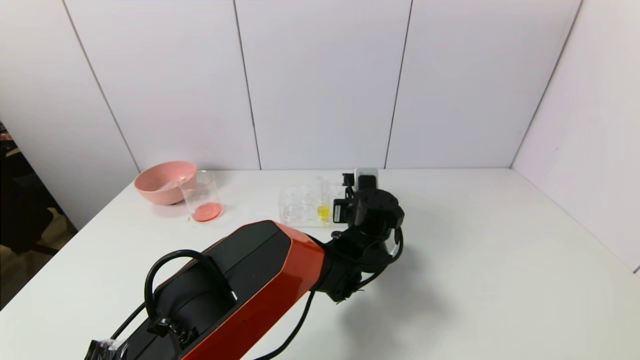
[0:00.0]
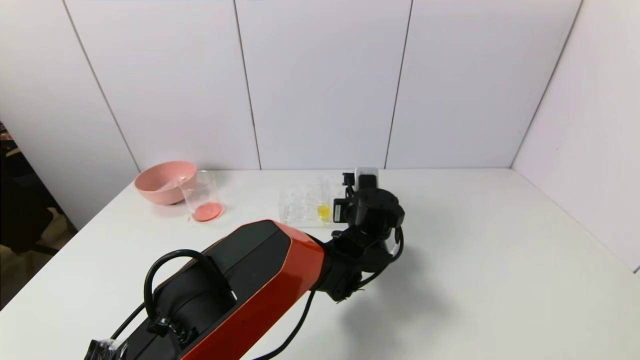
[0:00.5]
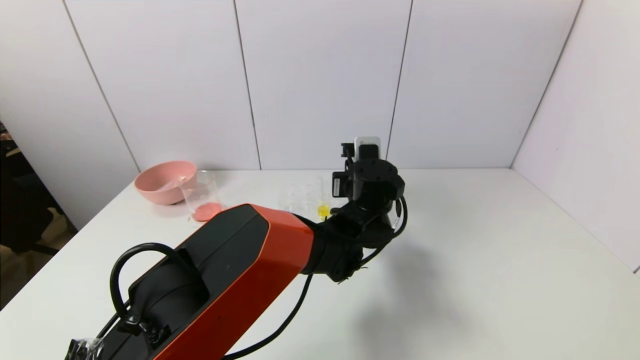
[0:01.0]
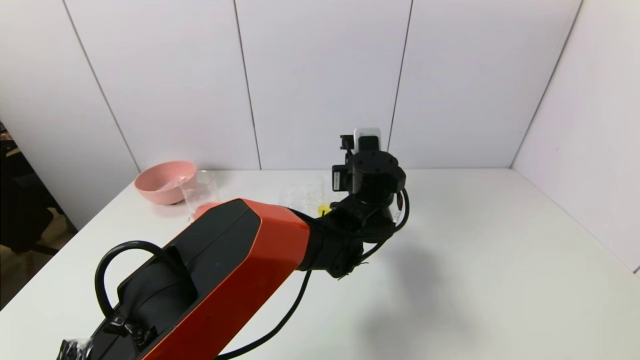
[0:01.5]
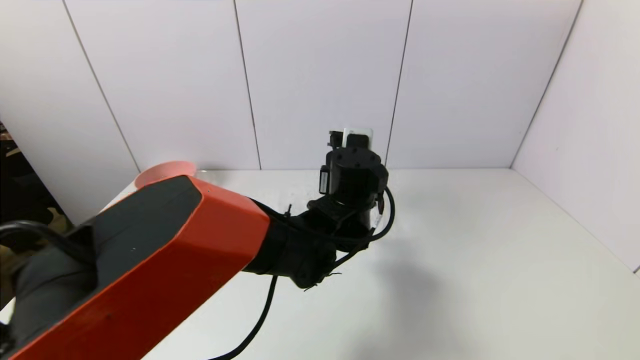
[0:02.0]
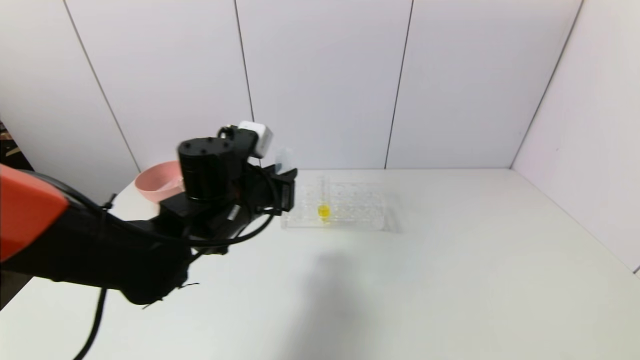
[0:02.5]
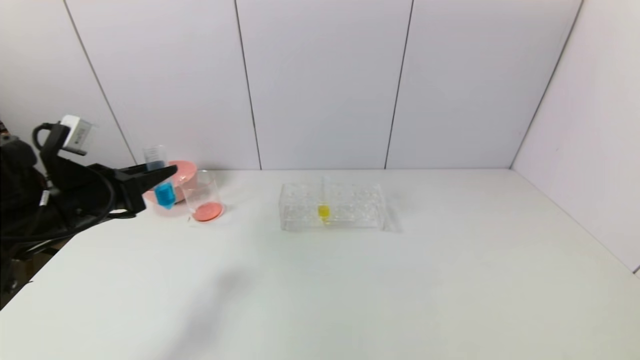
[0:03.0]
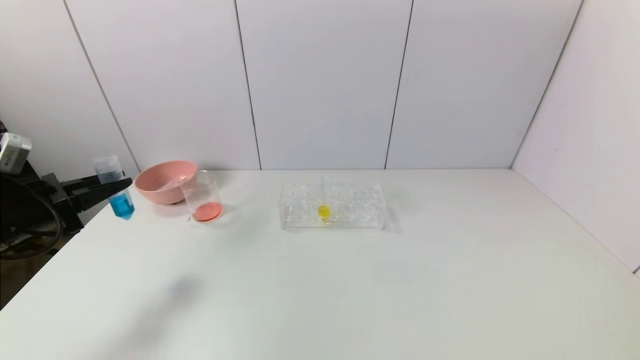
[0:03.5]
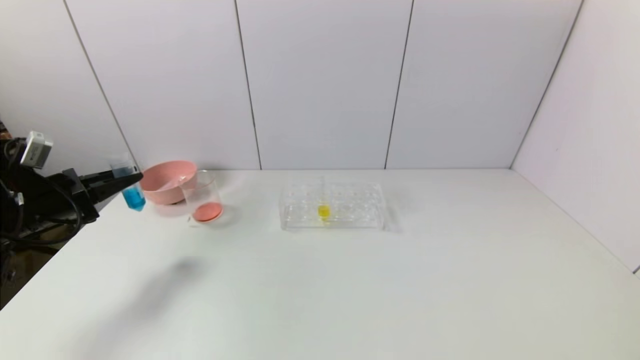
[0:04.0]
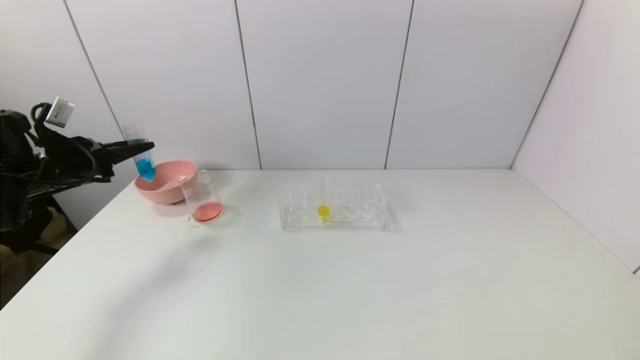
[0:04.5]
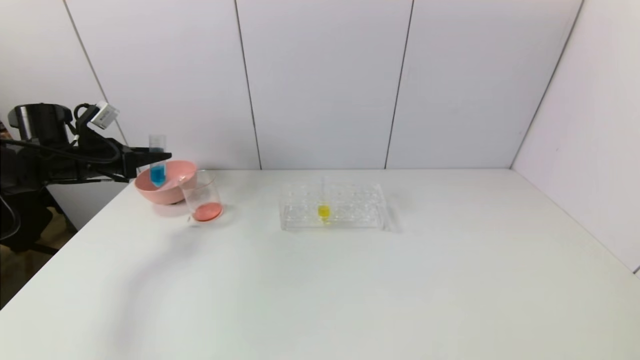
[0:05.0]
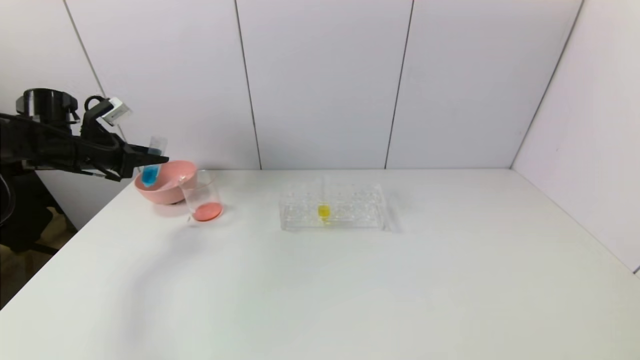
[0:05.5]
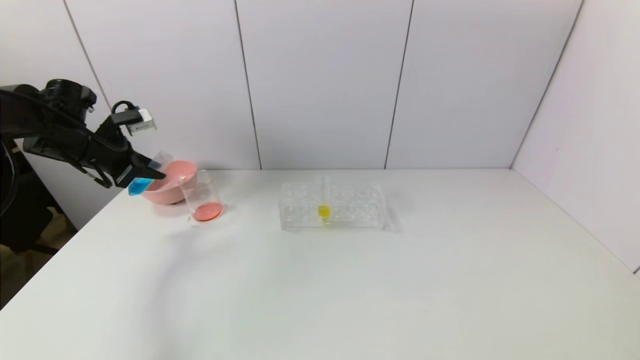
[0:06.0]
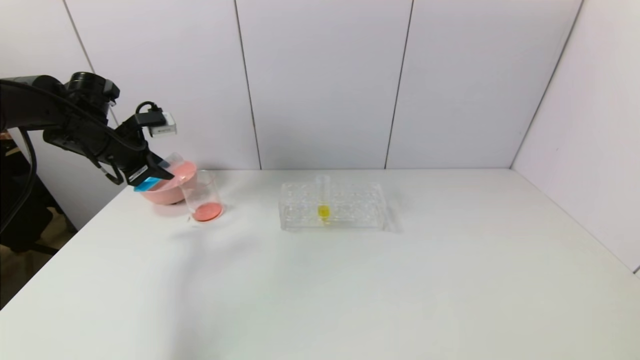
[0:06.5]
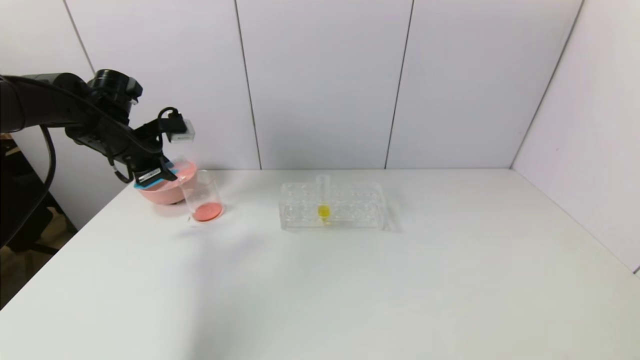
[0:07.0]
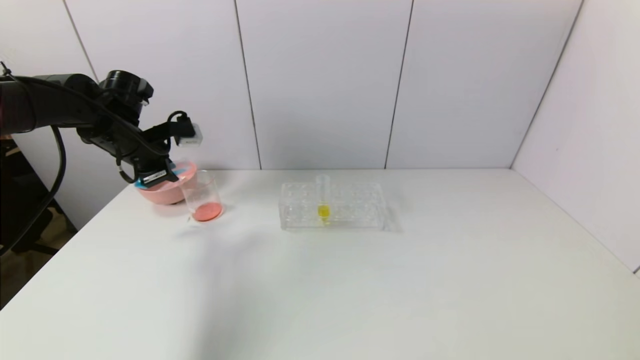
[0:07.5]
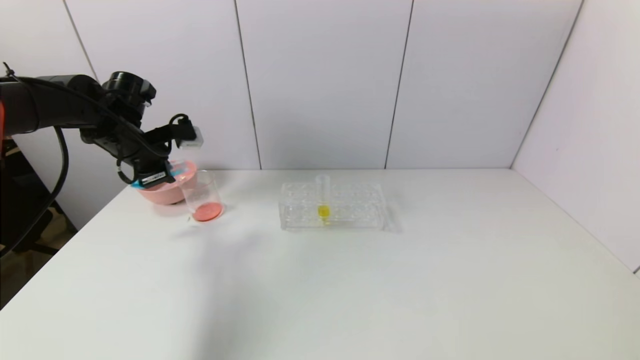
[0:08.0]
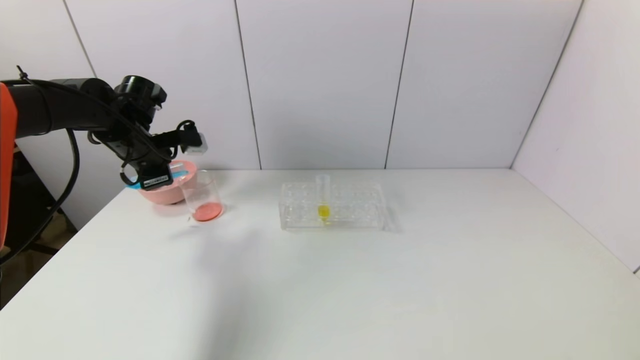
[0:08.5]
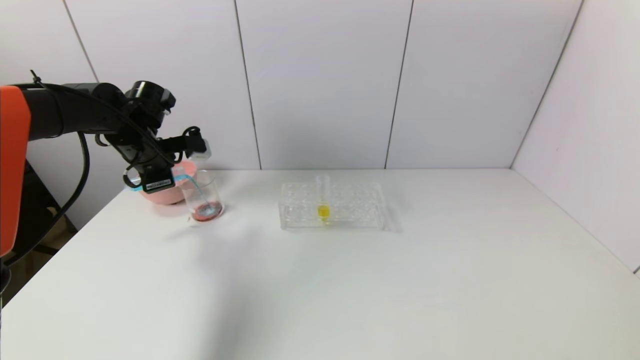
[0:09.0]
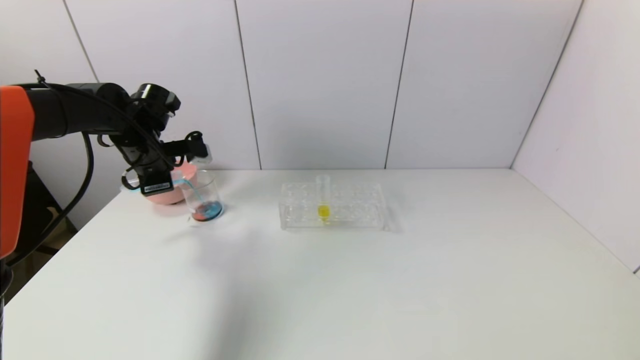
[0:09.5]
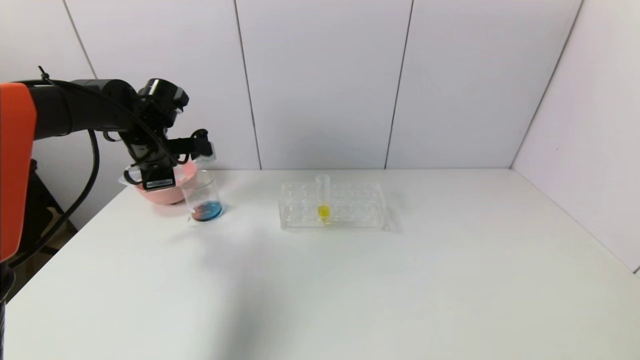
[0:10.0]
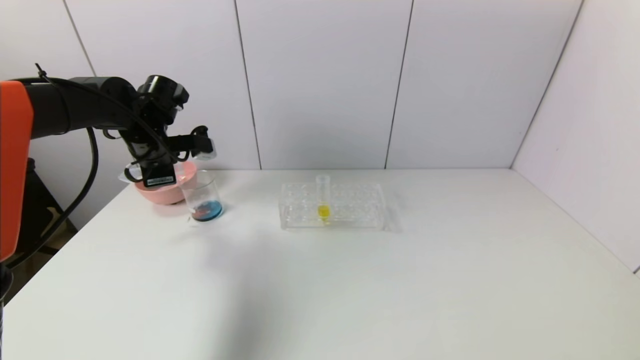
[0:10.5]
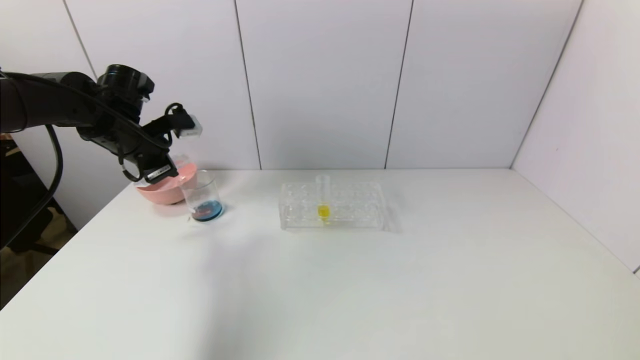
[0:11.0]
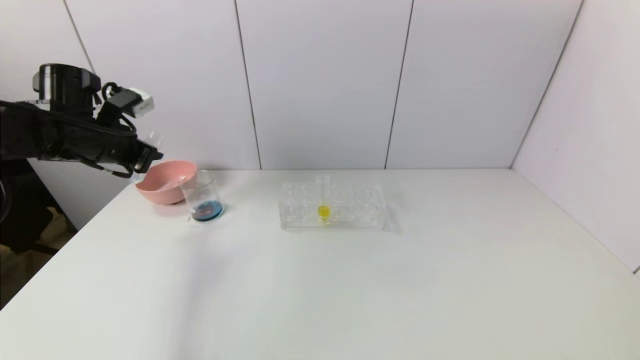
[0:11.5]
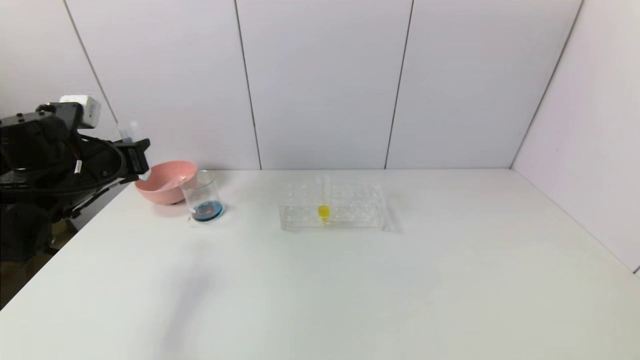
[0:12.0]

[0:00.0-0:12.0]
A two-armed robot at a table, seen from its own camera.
Task of the whole recording: pick up the test tube with red pigment and the test tube with blue pigment by grippers and pour them into the container.
Step, 0:00.0 to 0:10.5: Pour the blue reagent into the graduated cylinder with the left gripper.
0:00.0 to 0:02.0: The left gripper heads upward, covering about 10 cm.
0:02.0 to 0:04.0: The left gripper goes about 50 cm to the left.
0:04.0 to 0:06.0: The left gripper shifts some 10 cm forward and upward.
0:06.0 to 0:08.0: The left gripper shifts roughly 5 cm to the right.
0:10.0 to 0:12.0: The left gripper moves backward and to the left, about 10 cm.

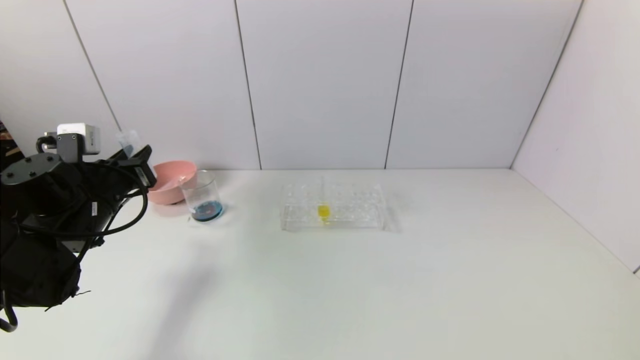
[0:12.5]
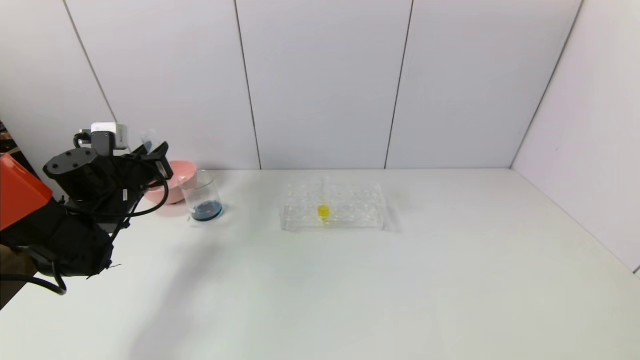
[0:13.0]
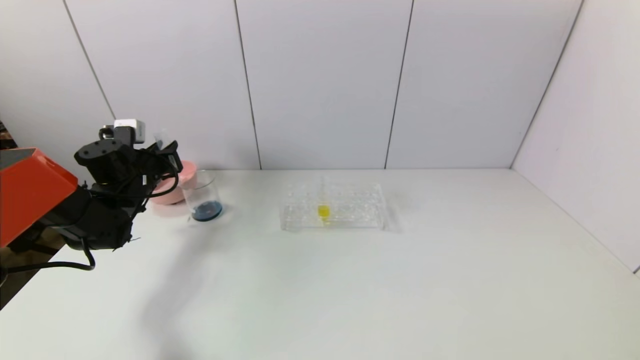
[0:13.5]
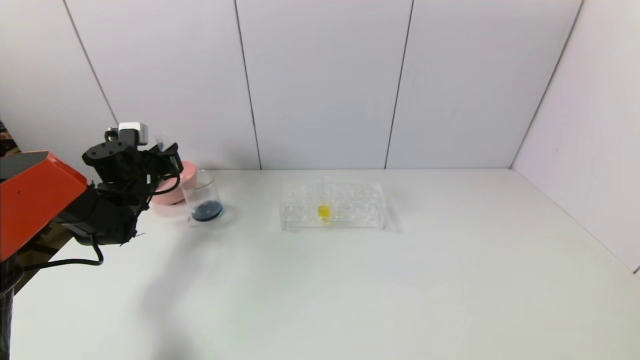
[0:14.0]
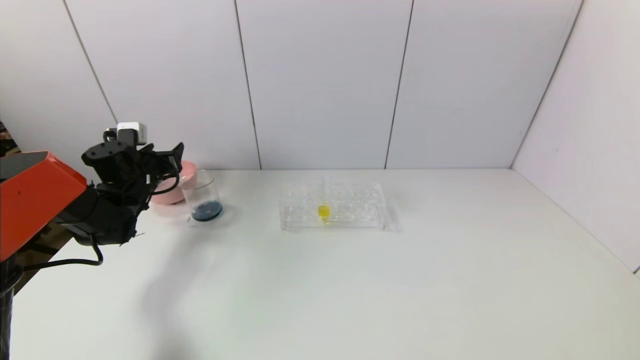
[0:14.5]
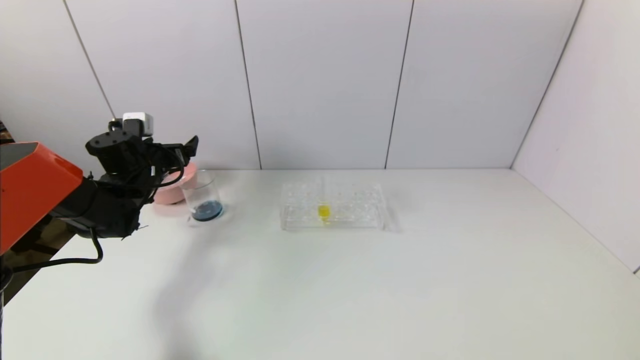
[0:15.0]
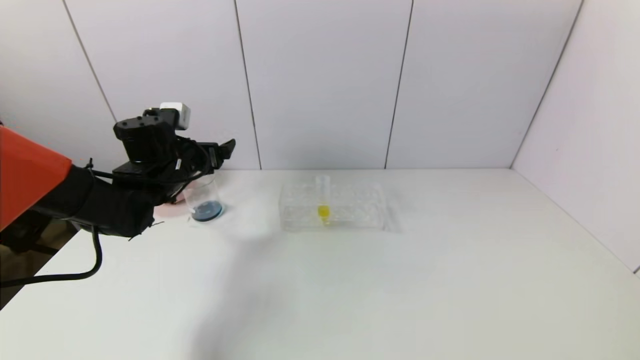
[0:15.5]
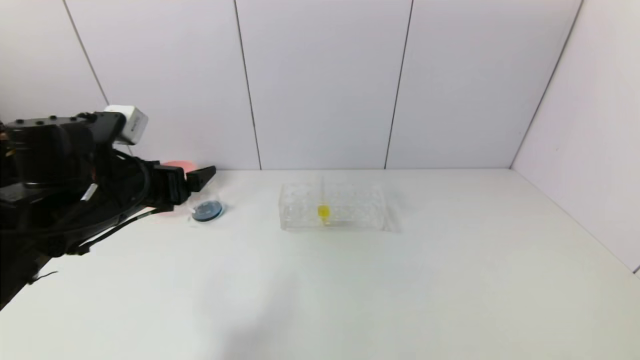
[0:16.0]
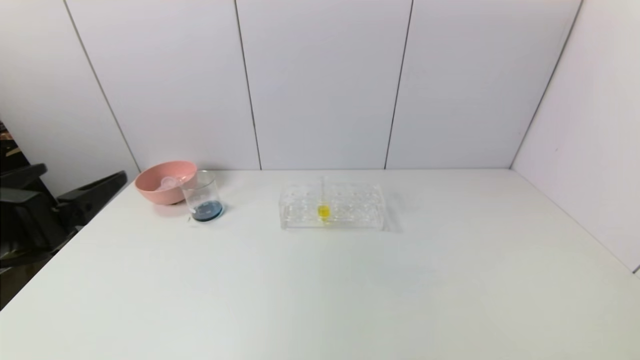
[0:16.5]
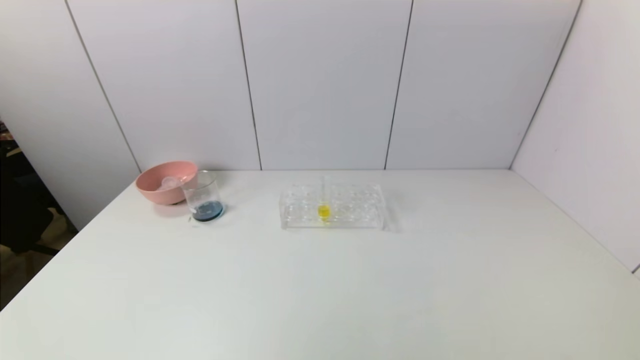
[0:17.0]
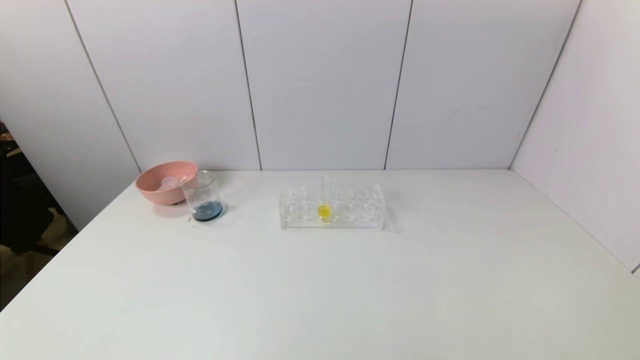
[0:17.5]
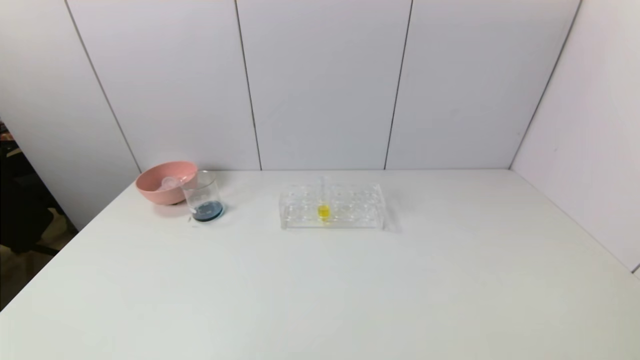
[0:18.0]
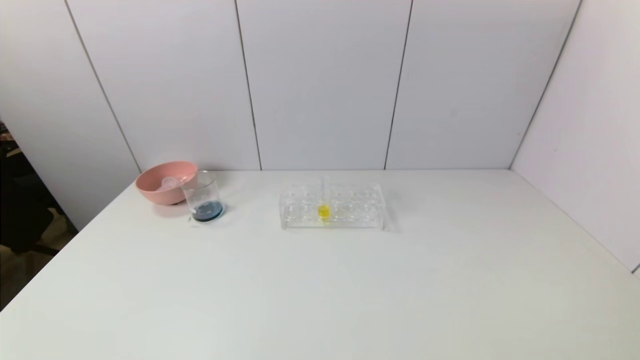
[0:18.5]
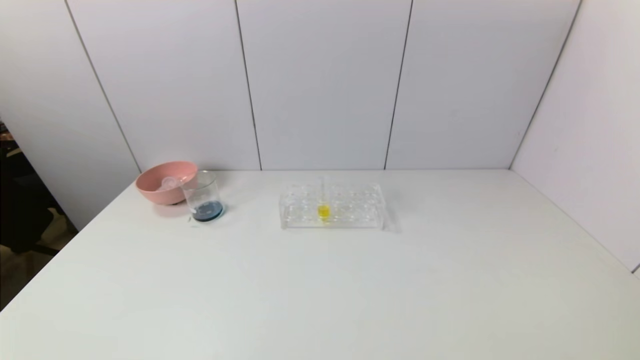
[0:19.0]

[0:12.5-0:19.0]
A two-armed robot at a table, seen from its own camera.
Task of the whole recording: pick up the test tube with red pigment and the test tube with blue pigment by grippers and pour them into the container.
0:12.5 to 0:14.5: The left gripper shifts roughly 15 cm forward, and opens.
0:14.5 to 0:17.0: The left gripper goes about 50 cm backward, and opens.
